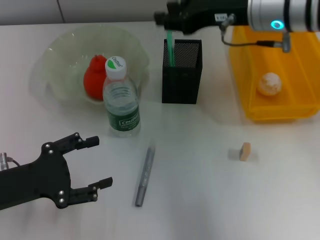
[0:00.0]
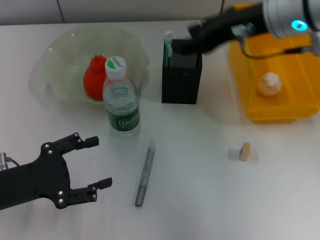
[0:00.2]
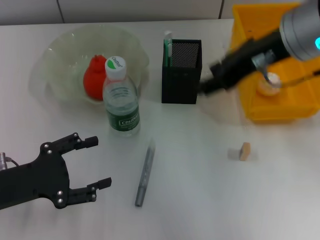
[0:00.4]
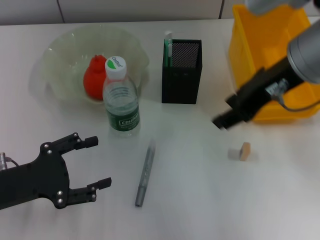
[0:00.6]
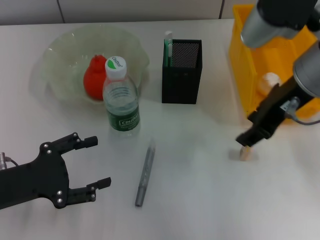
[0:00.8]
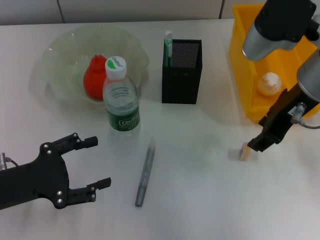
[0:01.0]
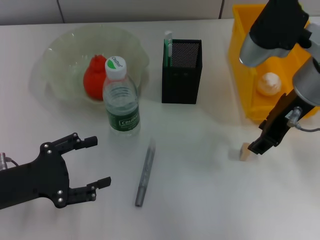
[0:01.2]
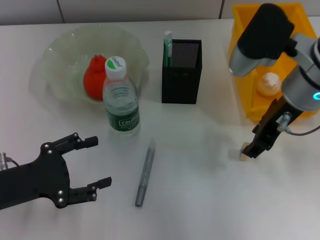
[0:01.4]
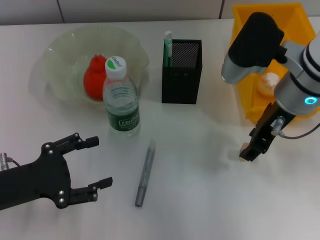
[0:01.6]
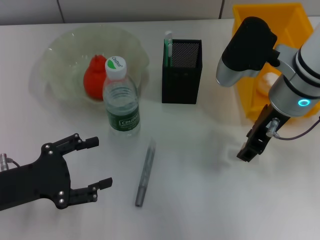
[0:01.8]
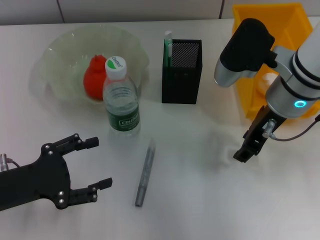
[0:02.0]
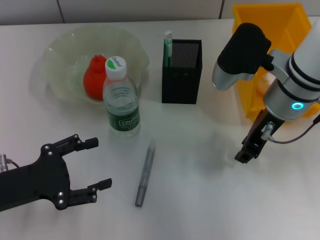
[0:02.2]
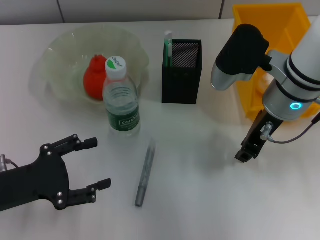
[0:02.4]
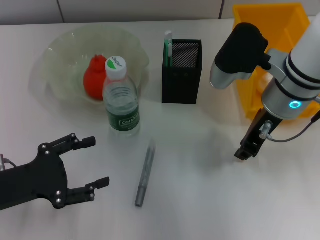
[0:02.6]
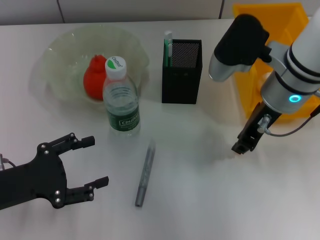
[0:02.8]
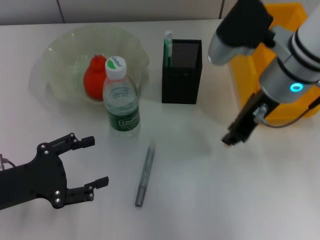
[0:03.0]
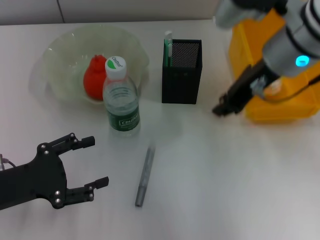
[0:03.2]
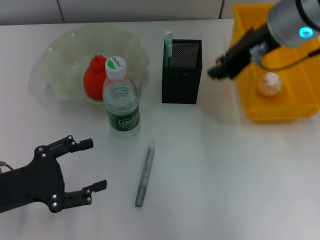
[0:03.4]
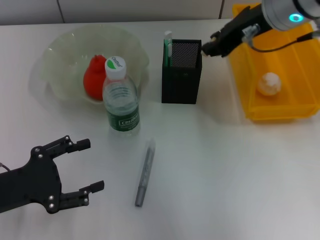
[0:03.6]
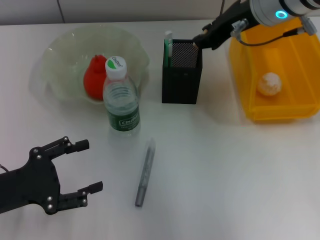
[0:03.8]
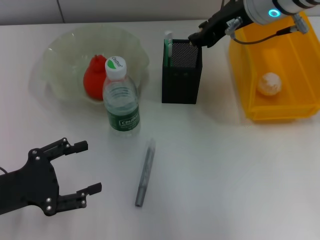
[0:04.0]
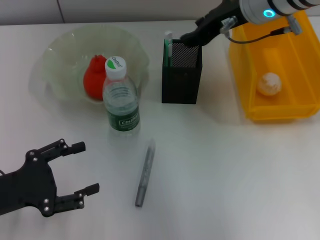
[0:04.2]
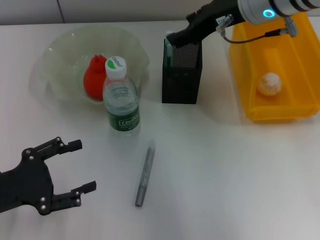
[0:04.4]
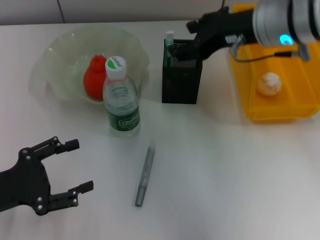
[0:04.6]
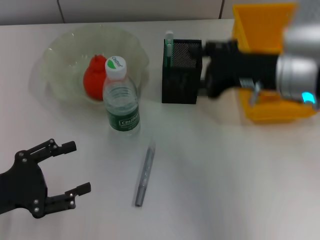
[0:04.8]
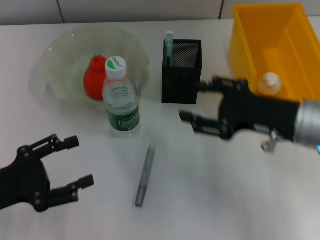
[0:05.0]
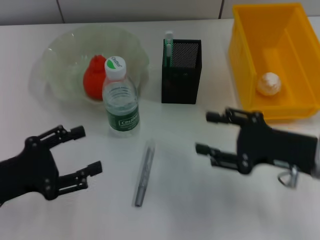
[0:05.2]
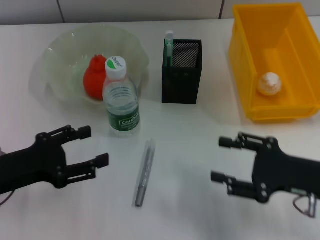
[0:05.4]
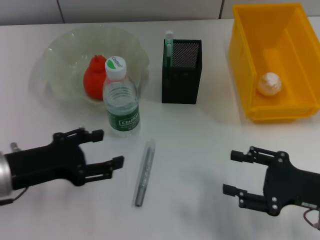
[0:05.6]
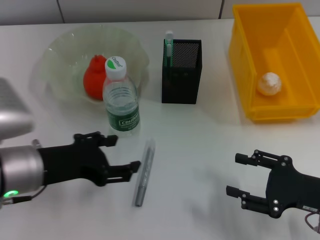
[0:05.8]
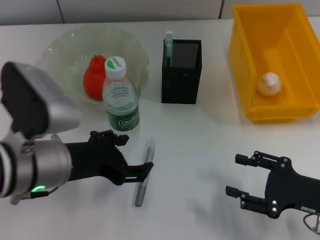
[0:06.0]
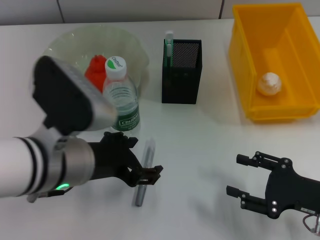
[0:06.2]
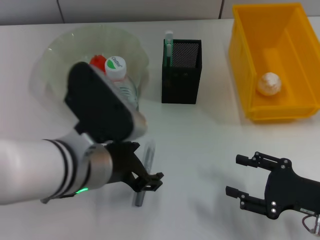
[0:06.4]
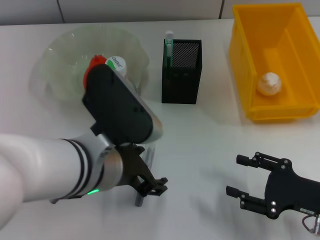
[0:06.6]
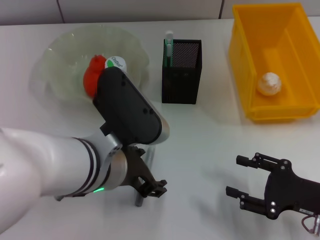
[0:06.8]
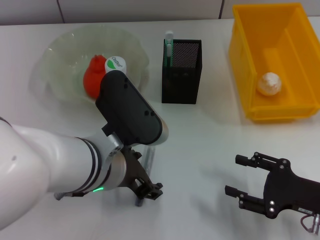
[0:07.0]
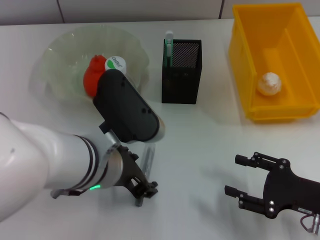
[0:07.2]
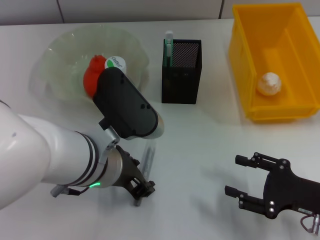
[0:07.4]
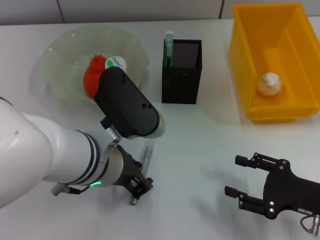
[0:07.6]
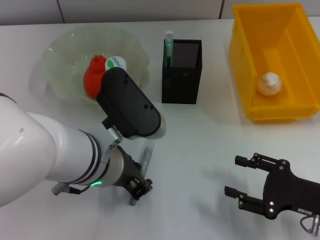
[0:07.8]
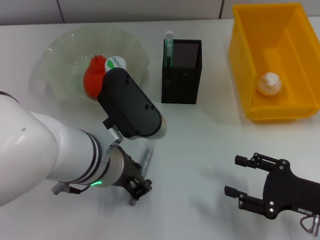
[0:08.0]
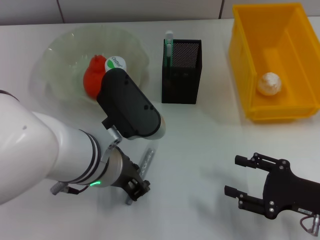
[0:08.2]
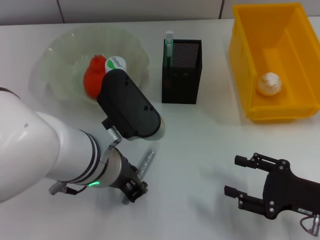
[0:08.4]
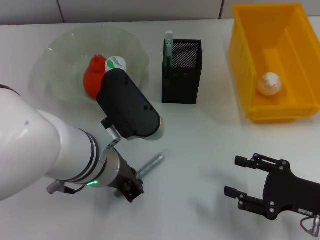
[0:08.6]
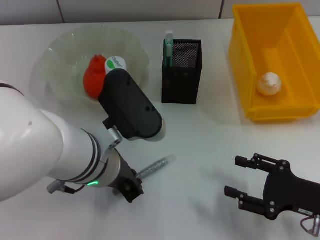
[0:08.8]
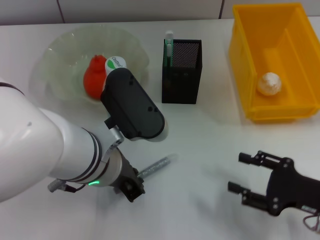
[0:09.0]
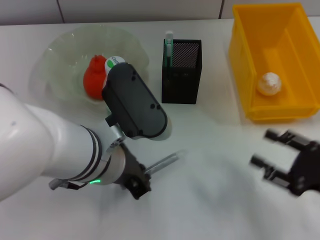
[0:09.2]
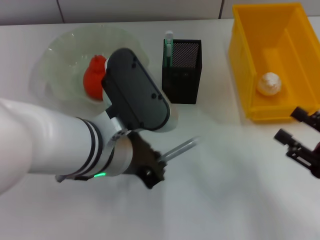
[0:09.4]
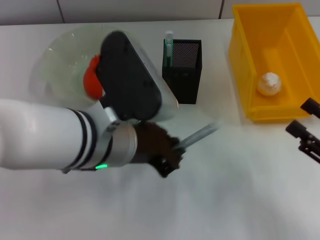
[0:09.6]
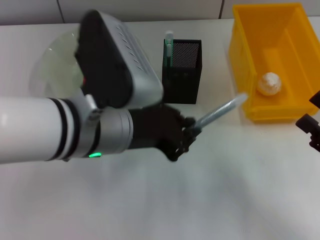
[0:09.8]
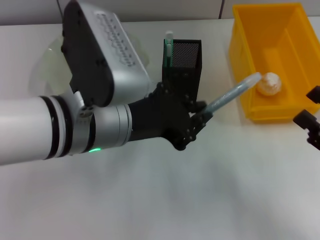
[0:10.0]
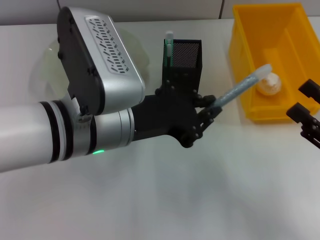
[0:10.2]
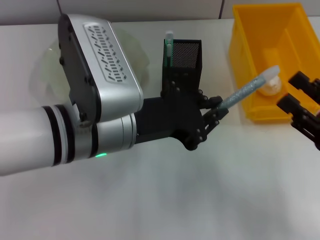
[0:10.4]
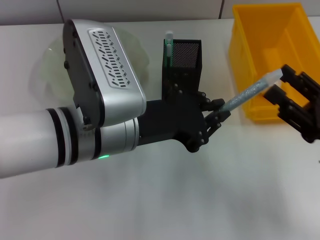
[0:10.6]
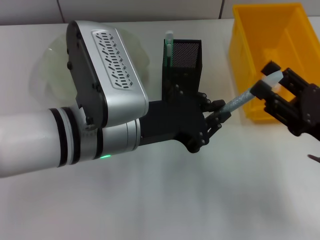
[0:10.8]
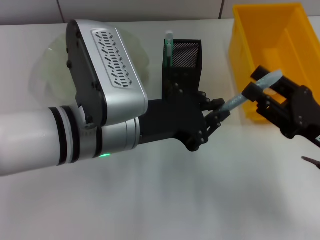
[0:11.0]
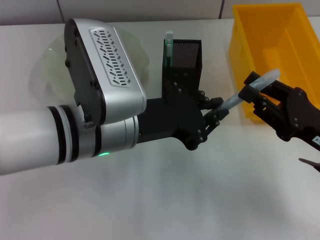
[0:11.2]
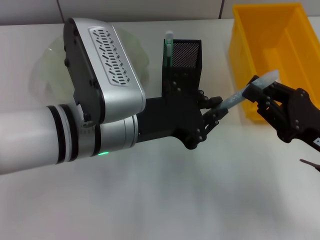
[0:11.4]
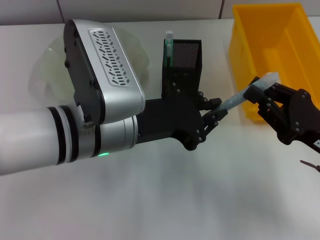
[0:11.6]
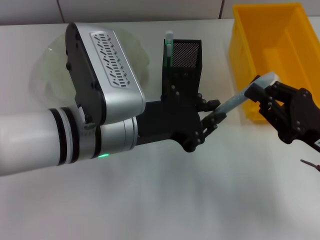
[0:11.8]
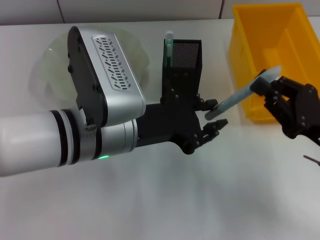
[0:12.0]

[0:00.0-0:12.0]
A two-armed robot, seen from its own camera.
Step, 0:00.8 to 0:03.0: Grab the eraser with the right hand.
Step, 0:03.2 to 0:04.4: Put the eraser into the pen holder with the right hand.
Step, 0:04.6 to 0:08.6: Grab the gray glue with the left hand.
0:00.0 to 0:01.6: The right gripper ends up approximately 5 cm from where it was, and opens.
0:01.6 to 0:03.0: The right gripper closes.
0:03.0 to 0:04.4: The right gripper shifts approximately 5 cm forward, and opens its fingers.
0:04.4 to 0:06.0: The right gripper goes roughly 30 cm backward, downward and to the right, while the left gripper travels to the right and upward by roughly 15 cm.
0:06.0 to 0:07.6: The left gripper is displaced to the right by approximately 10 cm, and closes.
0:07.6 to 0:09.0: There are only small adjustments of the grippers.
0:10.4 to 0:12.0: The right gripper closes its fingers.

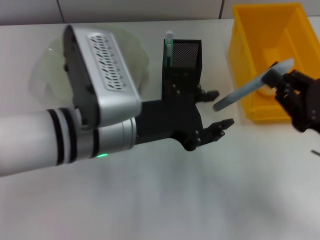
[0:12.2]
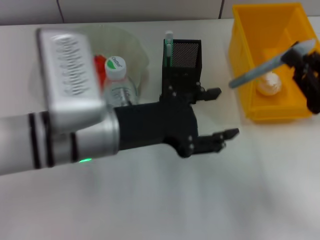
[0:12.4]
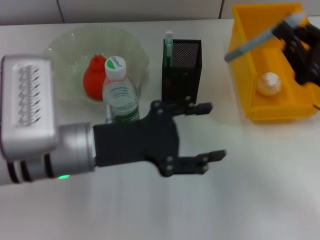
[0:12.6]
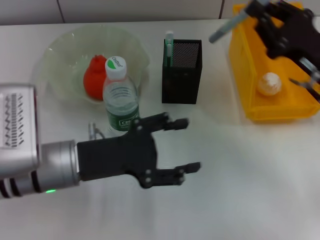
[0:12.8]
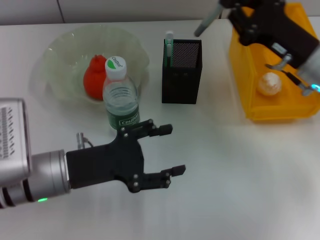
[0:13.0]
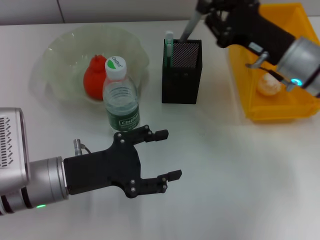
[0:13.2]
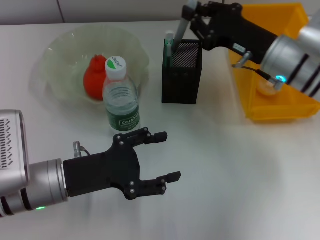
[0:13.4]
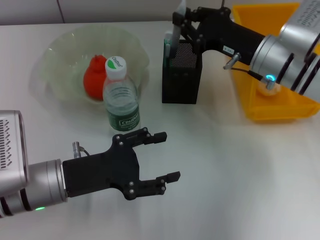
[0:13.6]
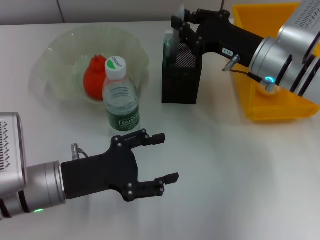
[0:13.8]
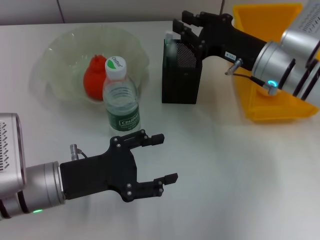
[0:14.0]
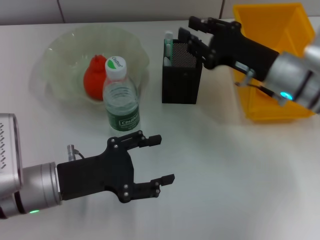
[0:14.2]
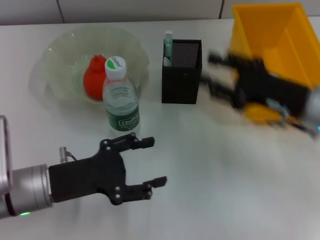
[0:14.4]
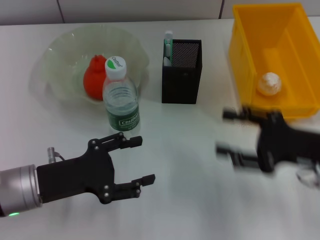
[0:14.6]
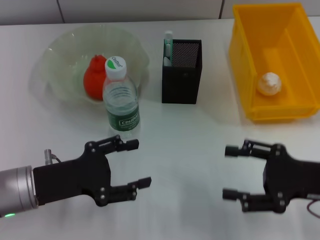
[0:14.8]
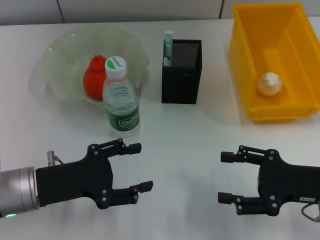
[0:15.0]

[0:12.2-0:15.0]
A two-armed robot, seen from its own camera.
Step, 0:12.4 to 0:14.0: Place the gray glue into the pen holder with the right hand.
0:12.2 to 0:13.6: The right gripper shifts roughly 20 cm forward and to the left, while the left gripper moves downward and to the left, approximately 15 cm, and opens its fingers.
0:13.6 to 0:15.0: The right gripper goes about 20 cm backward and to the right, and opens its fingers.
